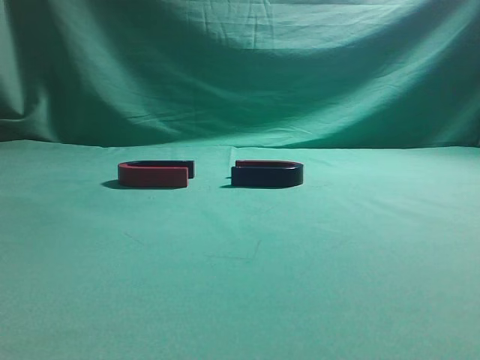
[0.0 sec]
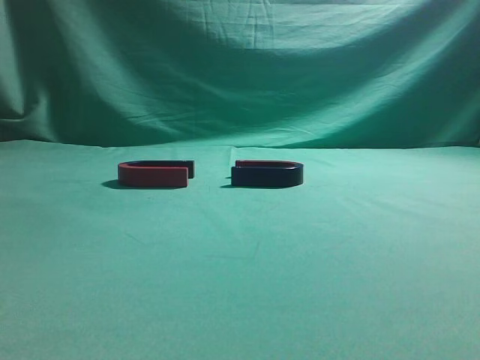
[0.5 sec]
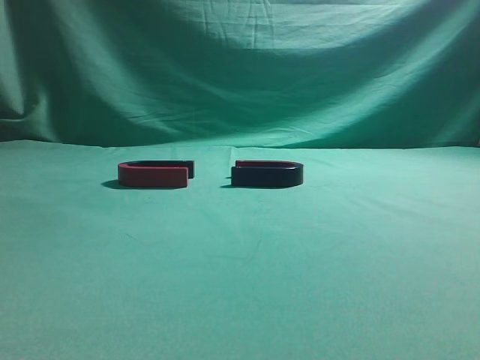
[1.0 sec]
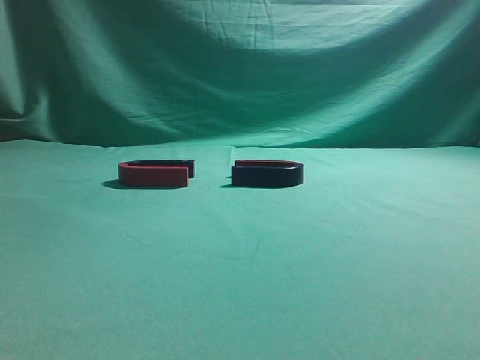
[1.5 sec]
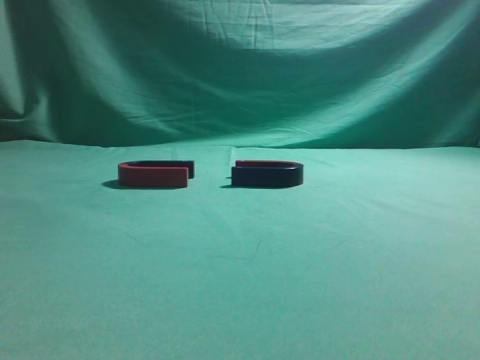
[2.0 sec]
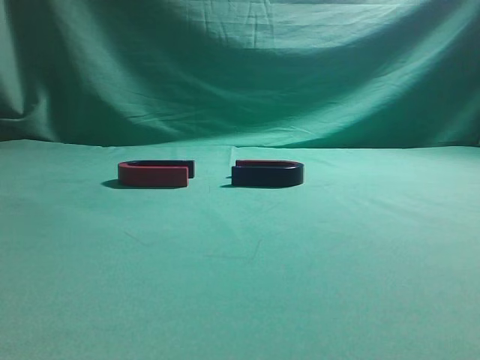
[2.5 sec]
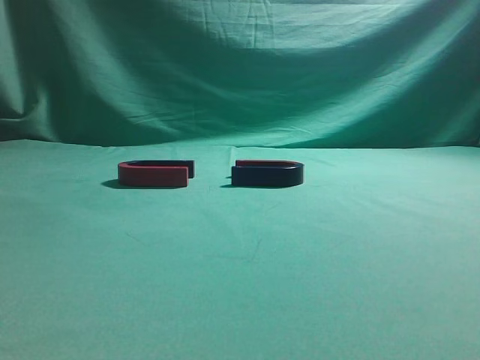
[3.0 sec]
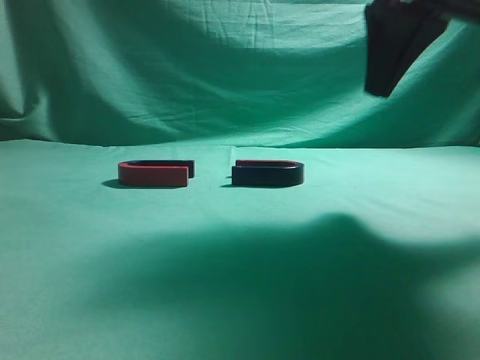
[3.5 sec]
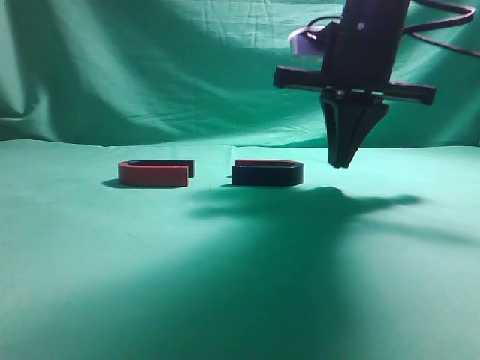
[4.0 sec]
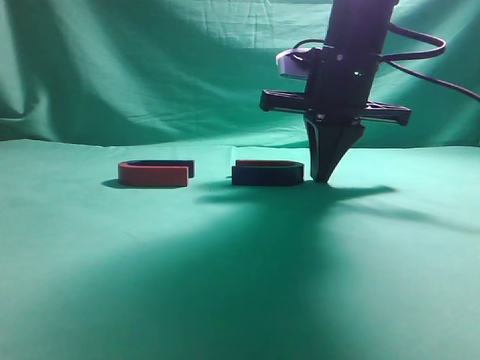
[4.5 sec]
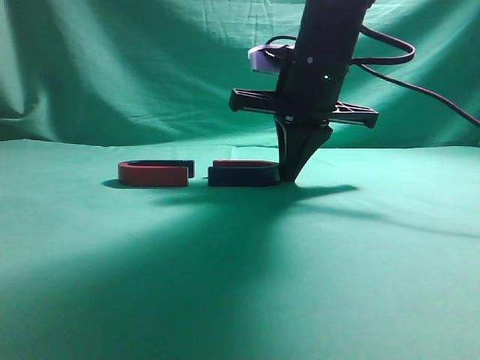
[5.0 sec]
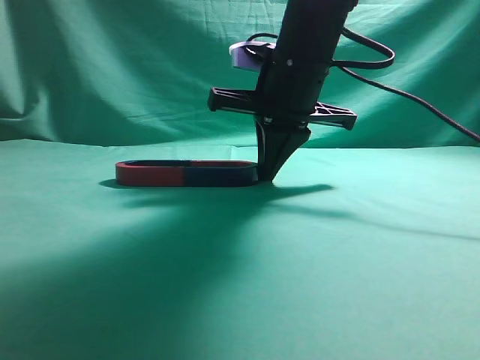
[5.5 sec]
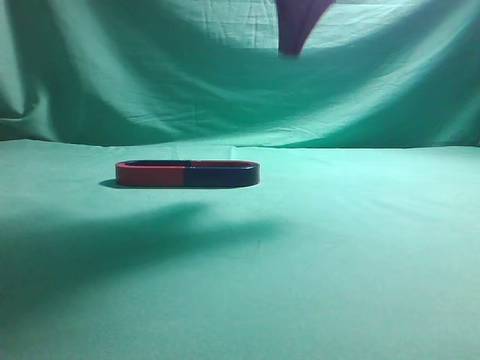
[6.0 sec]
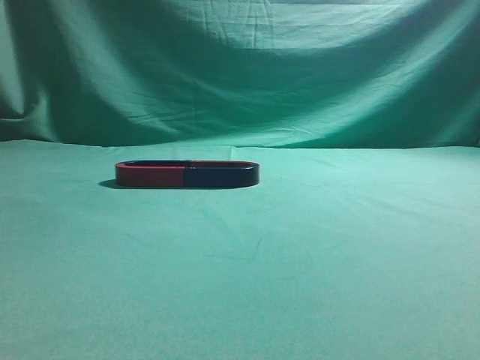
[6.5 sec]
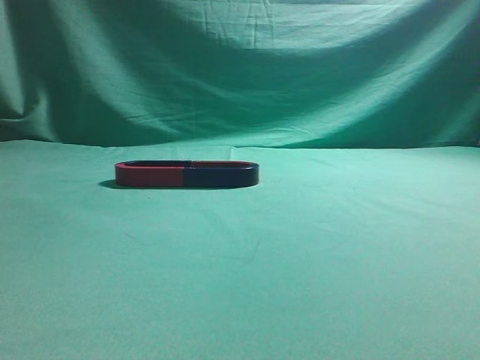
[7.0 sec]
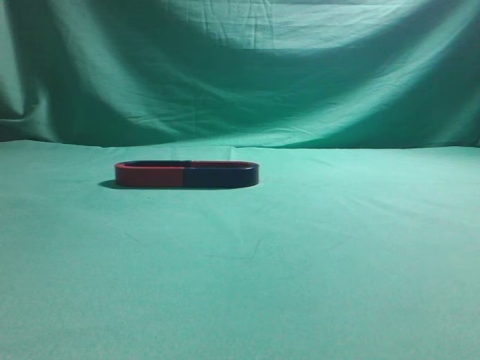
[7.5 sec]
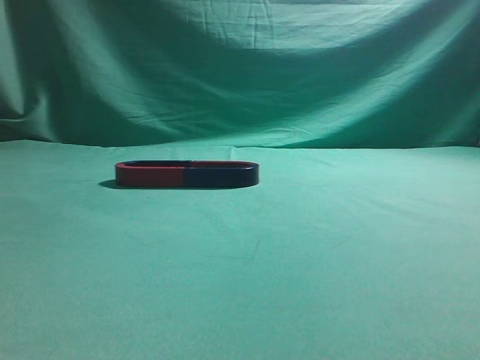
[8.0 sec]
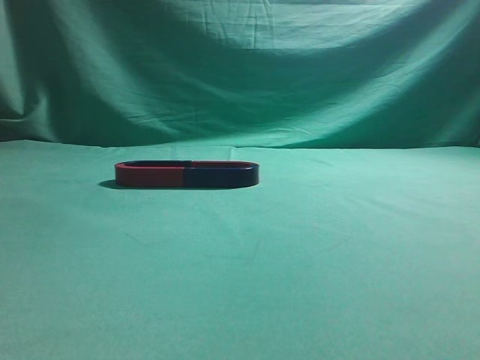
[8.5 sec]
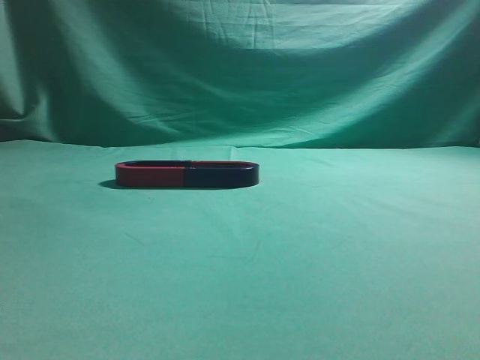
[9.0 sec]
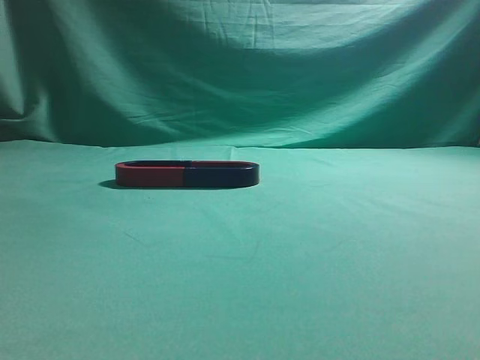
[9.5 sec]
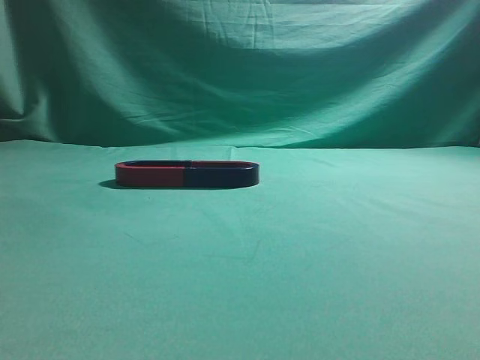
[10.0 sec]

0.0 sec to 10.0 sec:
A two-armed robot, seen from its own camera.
Task of the whole recording: push the magnet on the table from its original position to another position.
Step, 0.0 sec to 5.5 sec: Push the magnet on the right to connect the magnet on the left.
2.0 sec to 4.0 sec: The right gripper heads forward and to the left, covering about 35 cm.
4.0 sec to 6.0 sec: The right gripper heads upward, covering approximately 10 cm.
6.0 sec to 8.0 sec: The right gripper moves backward and to the right, some 40 cm.
